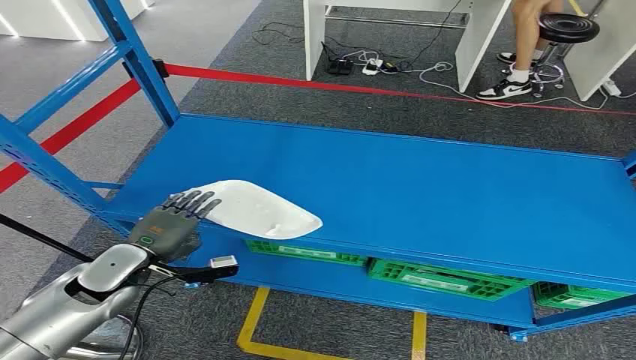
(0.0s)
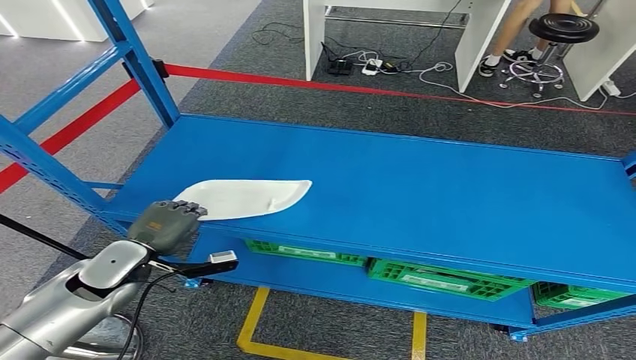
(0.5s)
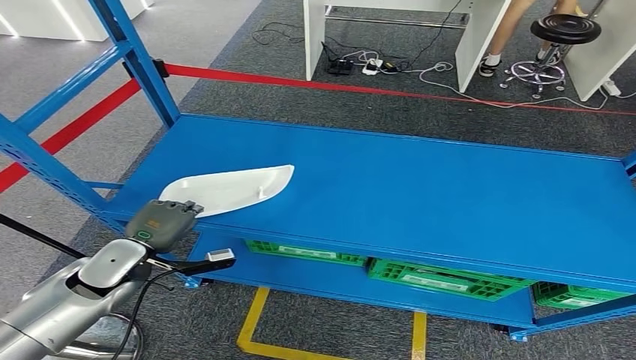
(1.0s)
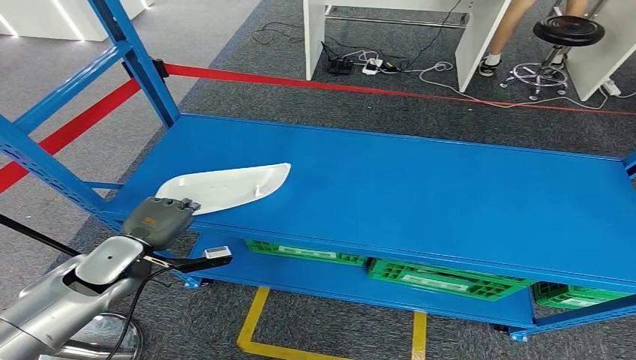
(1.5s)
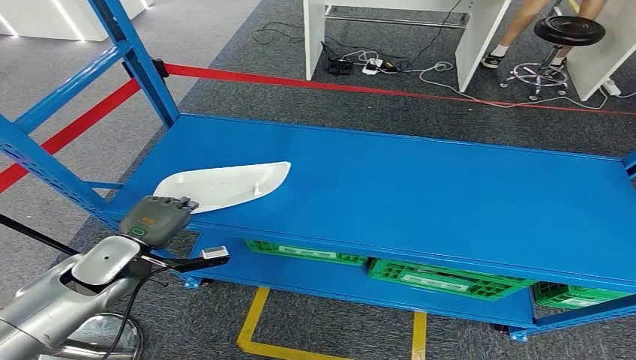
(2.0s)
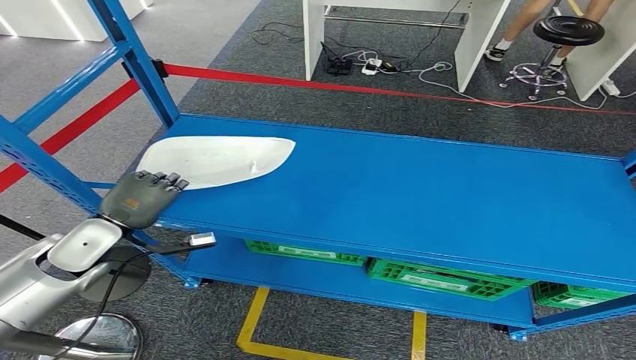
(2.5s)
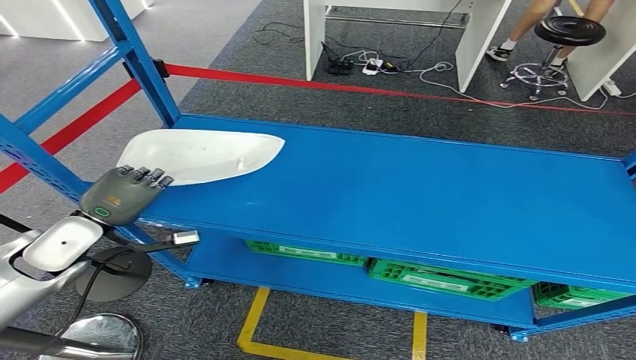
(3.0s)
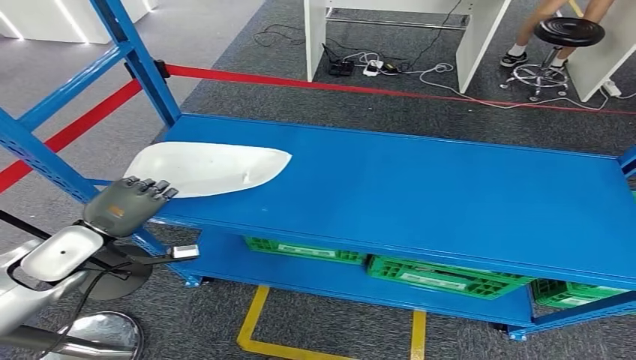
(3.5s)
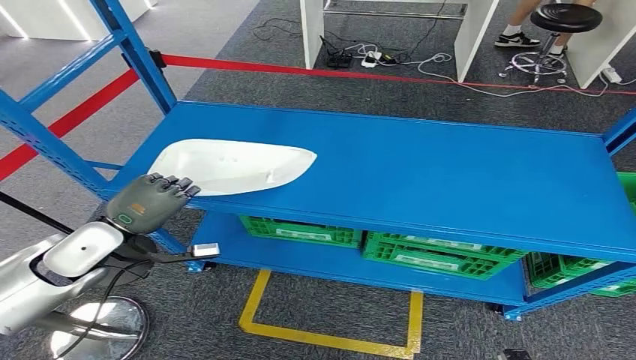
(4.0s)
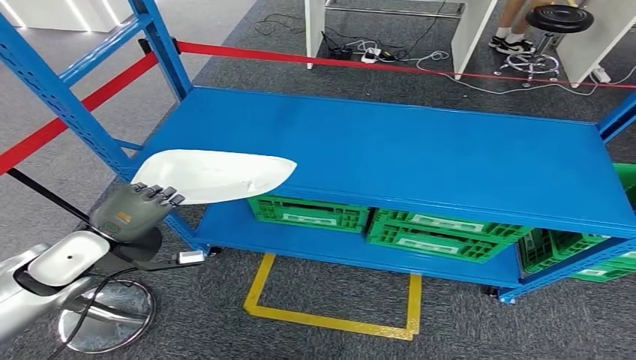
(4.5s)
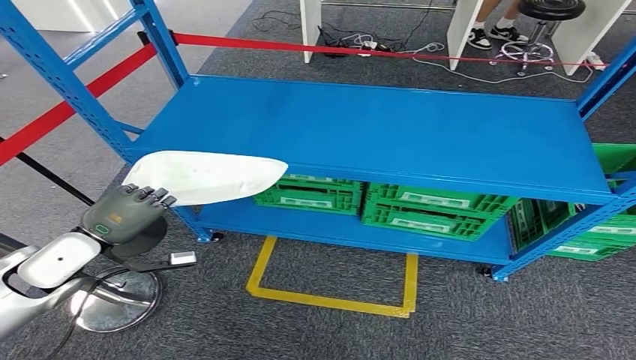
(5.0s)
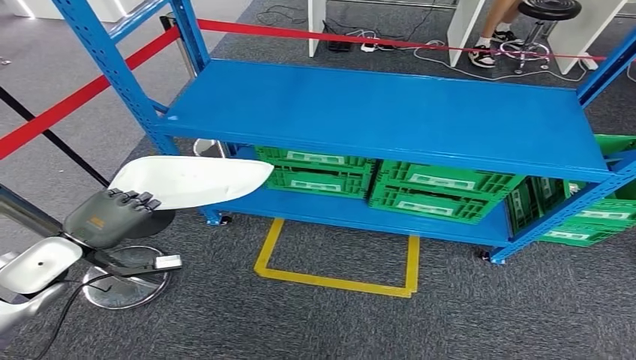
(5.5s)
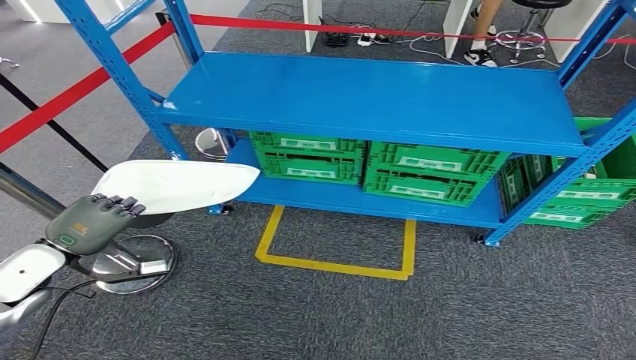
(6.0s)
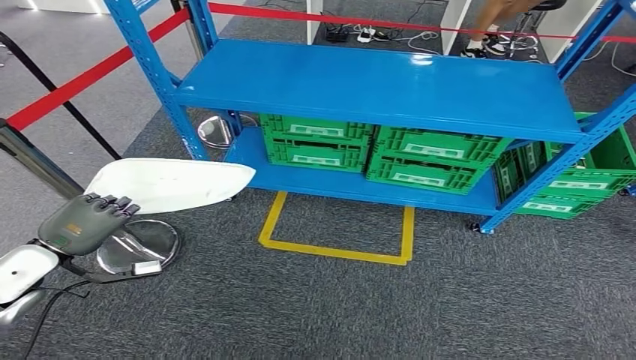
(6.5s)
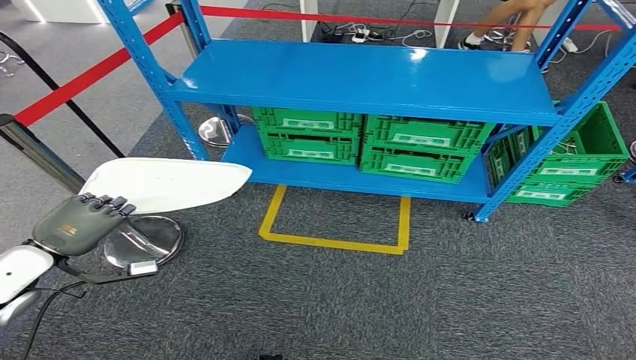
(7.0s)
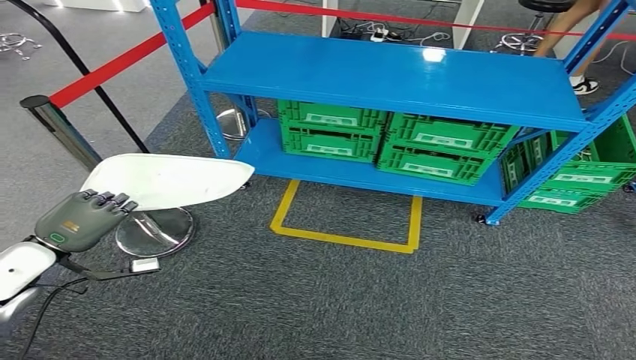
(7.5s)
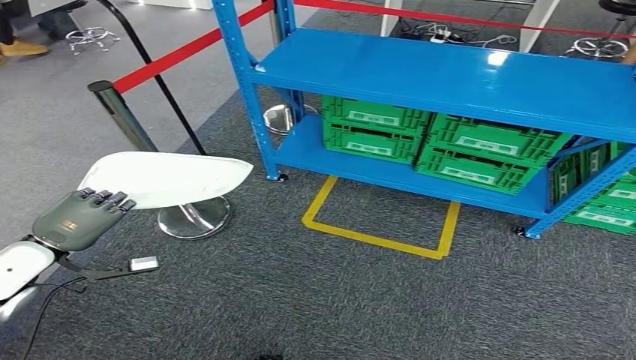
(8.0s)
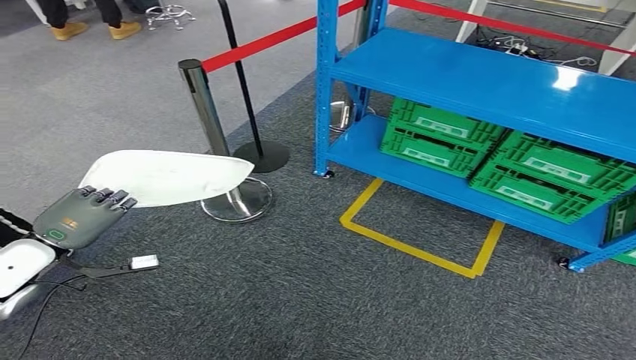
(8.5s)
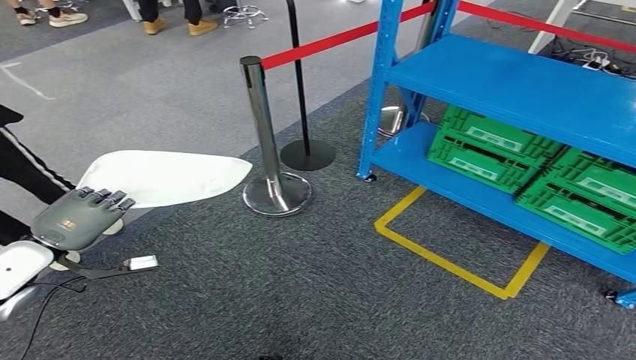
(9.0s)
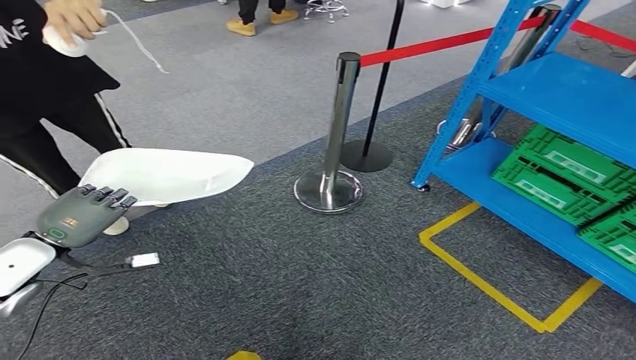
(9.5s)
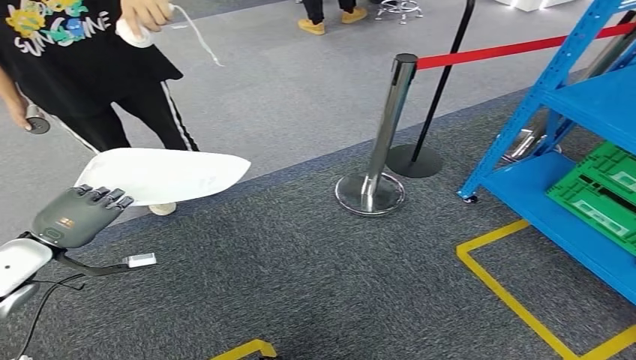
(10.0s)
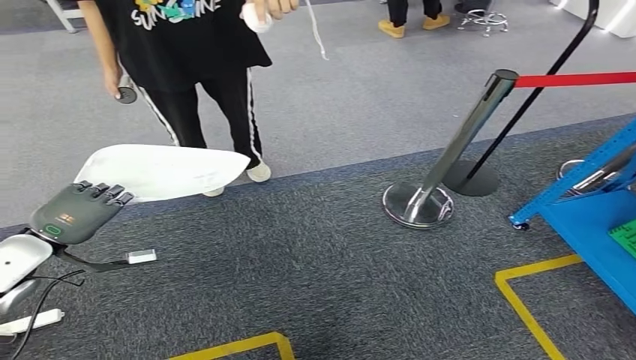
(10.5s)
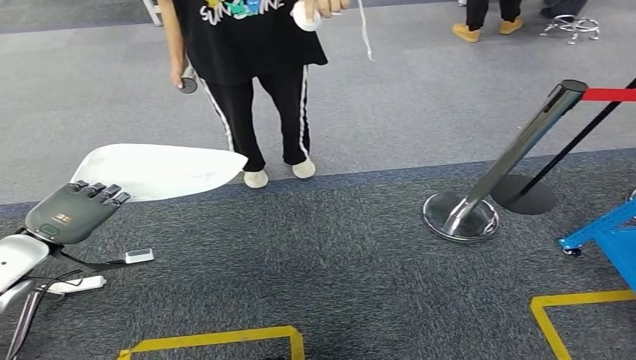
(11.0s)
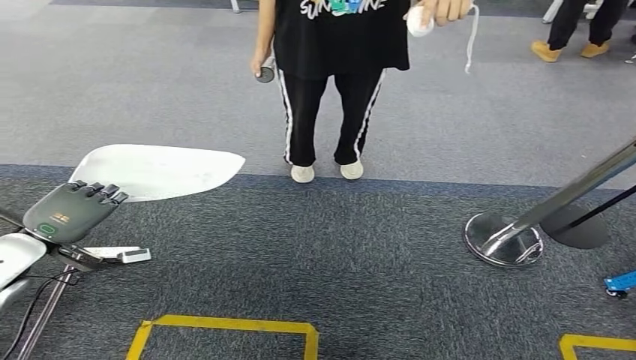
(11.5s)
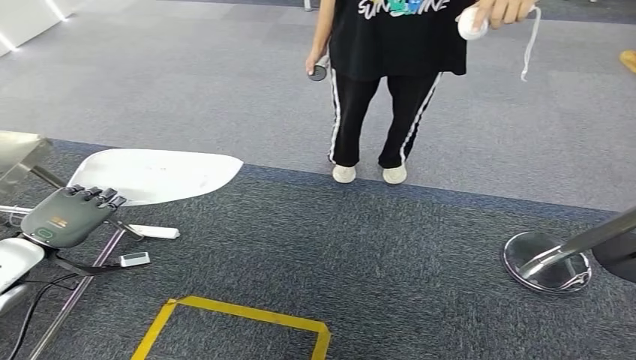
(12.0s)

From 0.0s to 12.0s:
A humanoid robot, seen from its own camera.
Step, from 0.0s to 3.5s: Take small components from the rack.

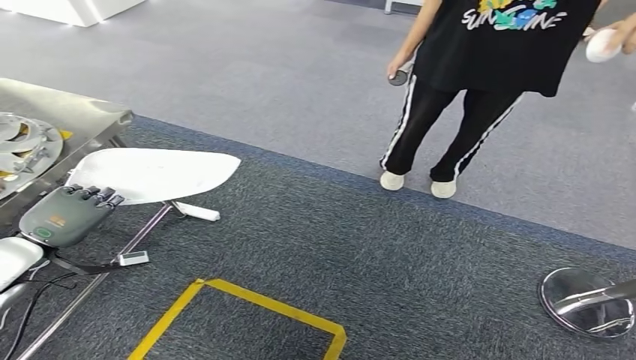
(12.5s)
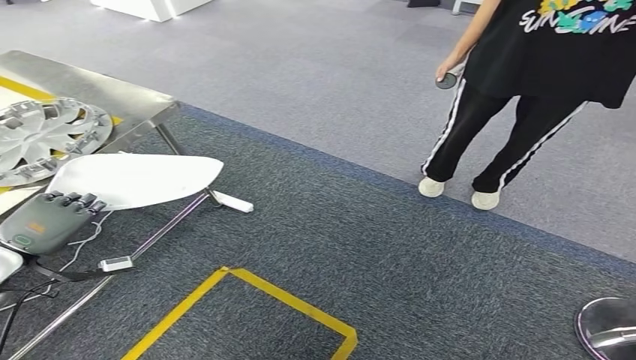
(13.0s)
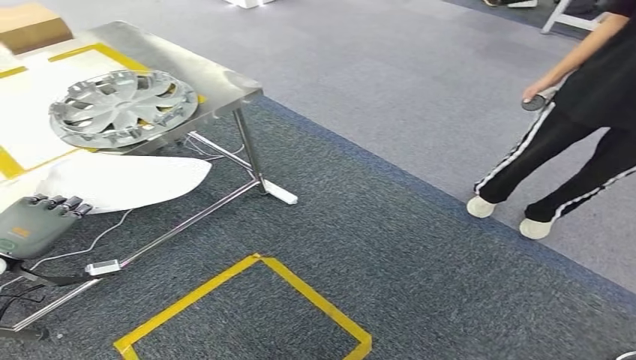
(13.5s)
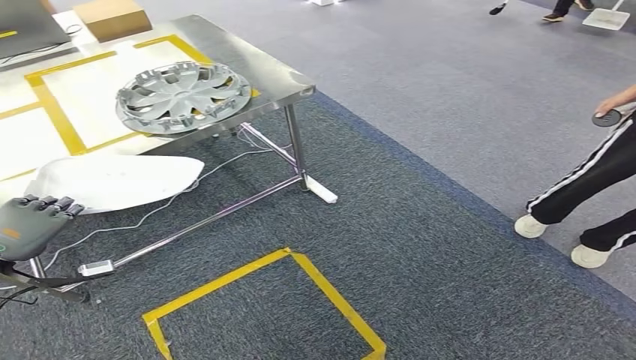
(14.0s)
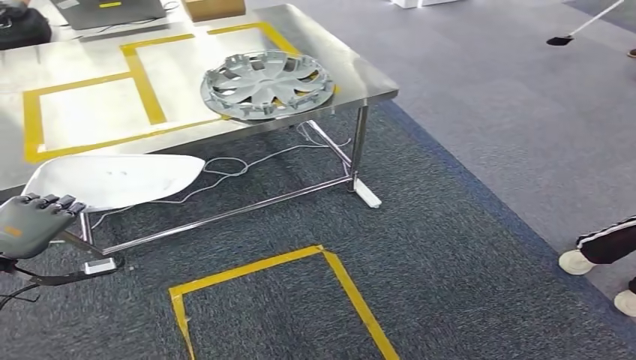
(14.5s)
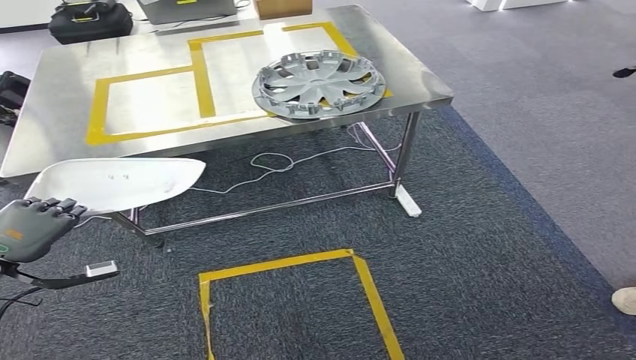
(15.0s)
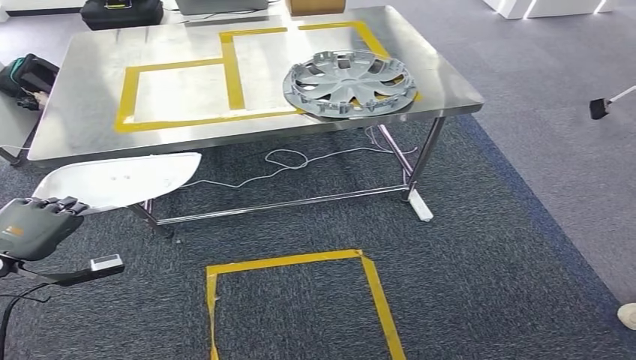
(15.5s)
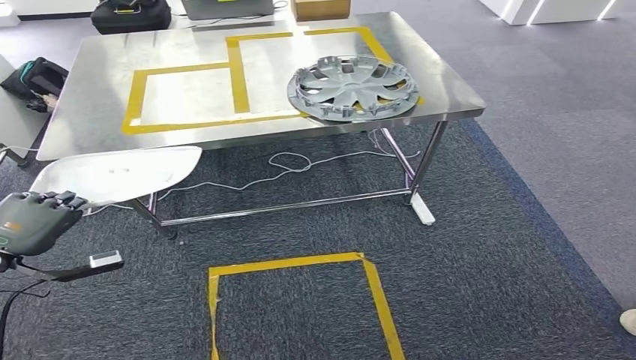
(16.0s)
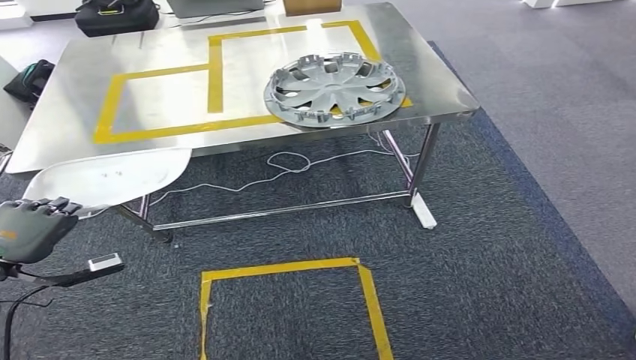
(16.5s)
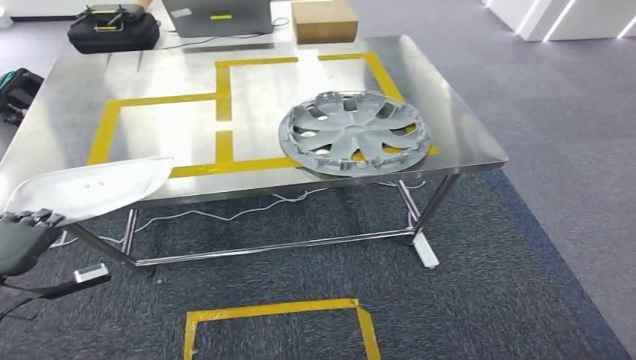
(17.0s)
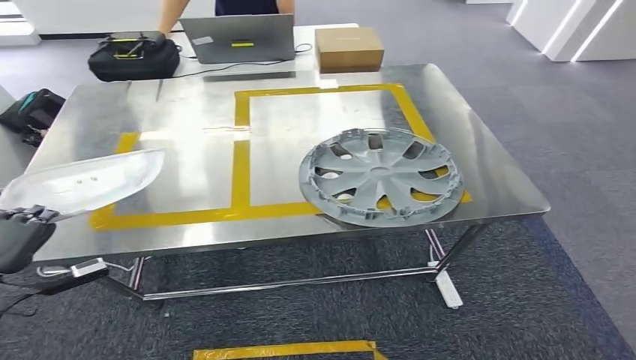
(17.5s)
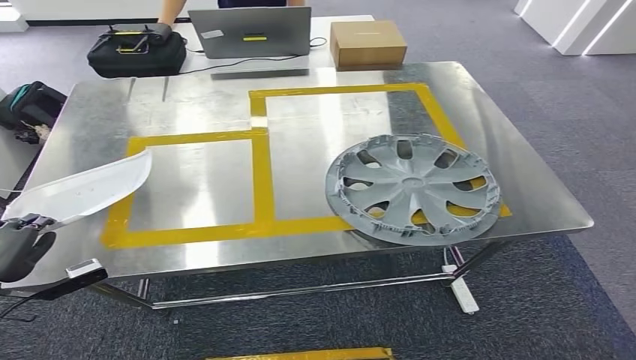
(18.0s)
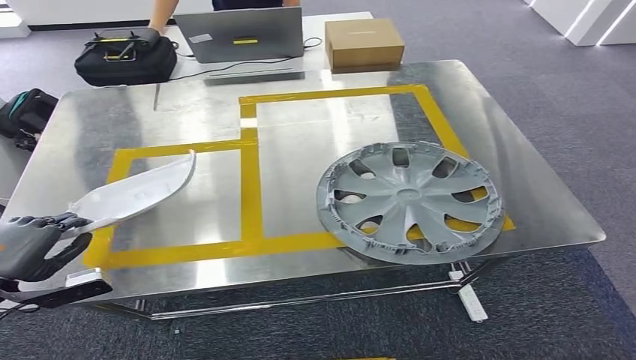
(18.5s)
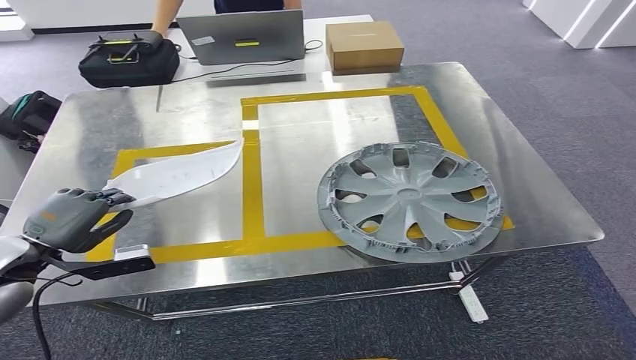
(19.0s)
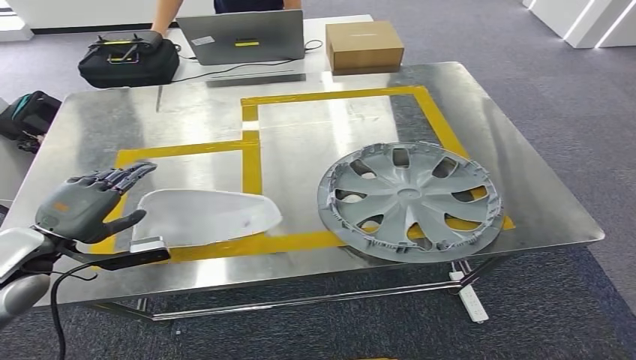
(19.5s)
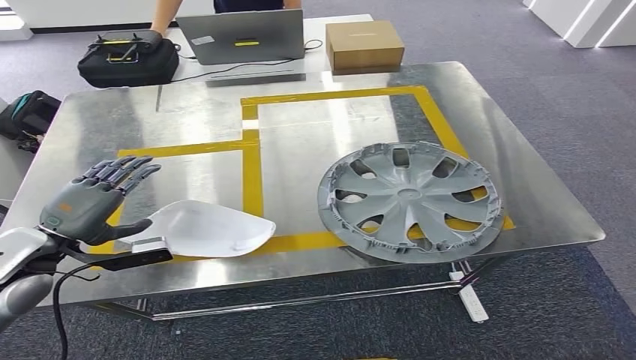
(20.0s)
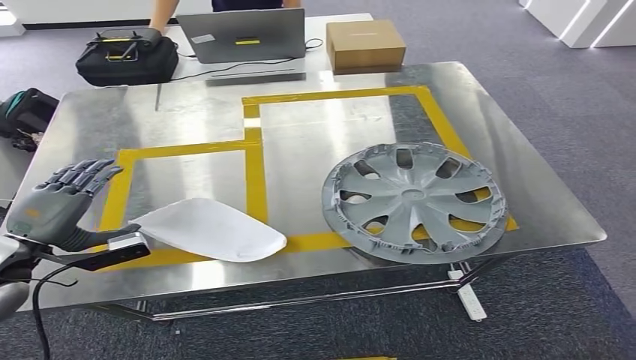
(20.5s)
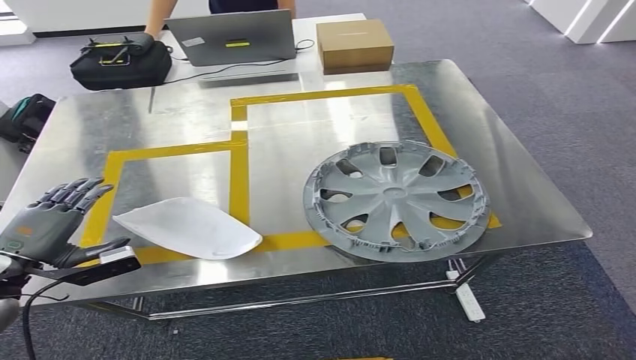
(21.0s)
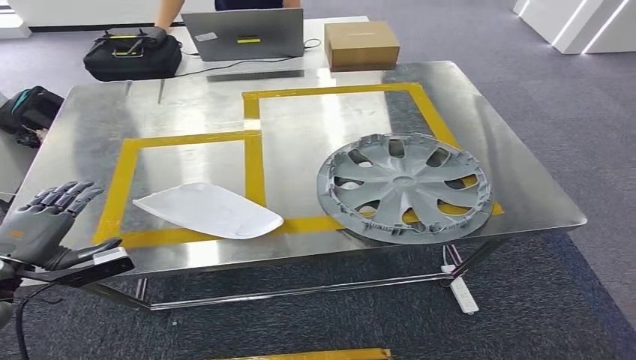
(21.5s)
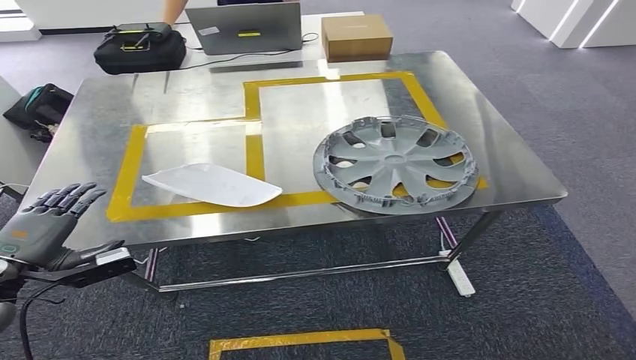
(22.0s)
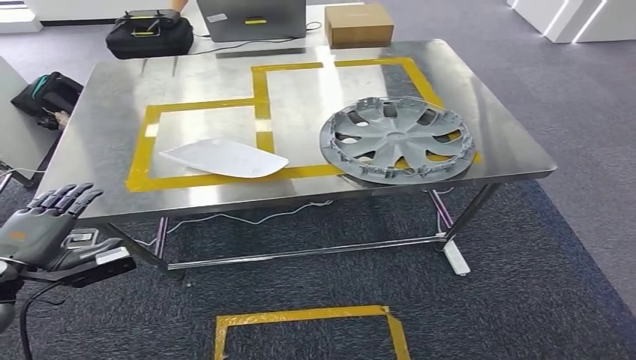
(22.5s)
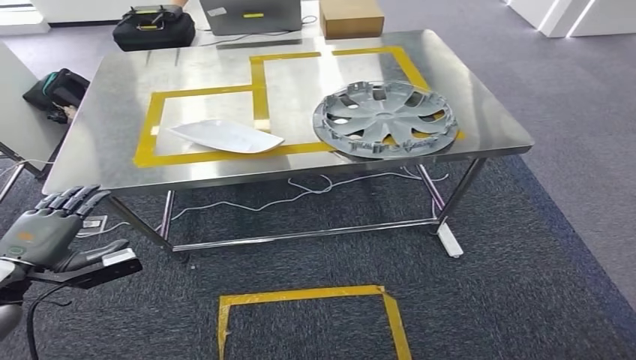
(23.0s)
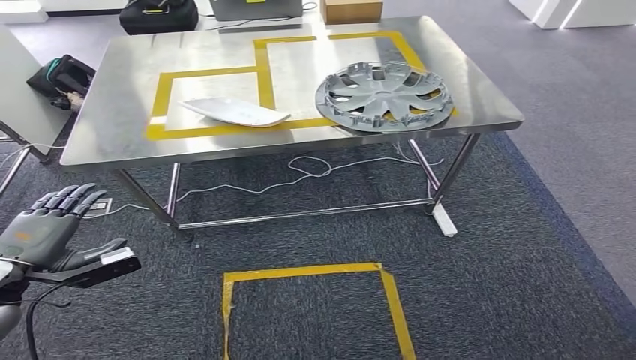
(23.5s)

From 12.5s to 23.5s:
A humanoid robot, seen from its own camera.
Step, from 12.5s to 17.5s: Move the small parts to the workbench.
Step, from 18.0s to 21.0s: Insert the small parts into the corresponding holes on the workbench.
